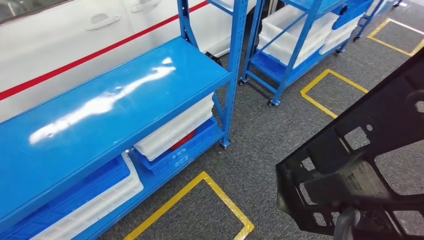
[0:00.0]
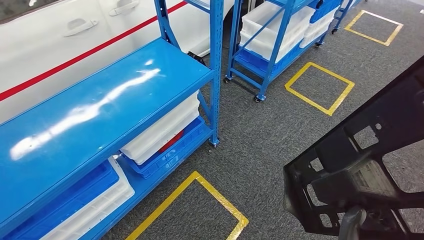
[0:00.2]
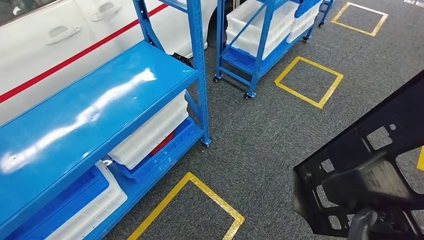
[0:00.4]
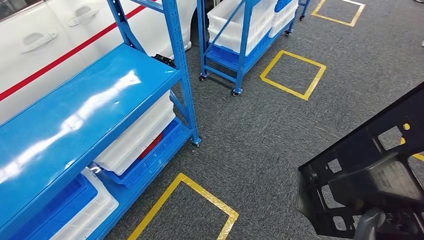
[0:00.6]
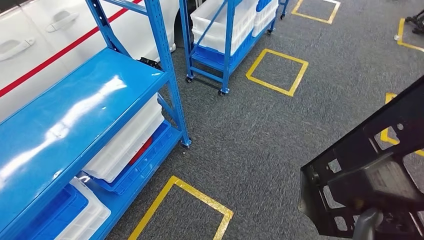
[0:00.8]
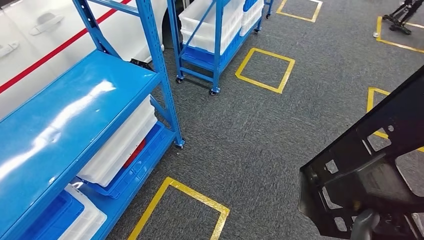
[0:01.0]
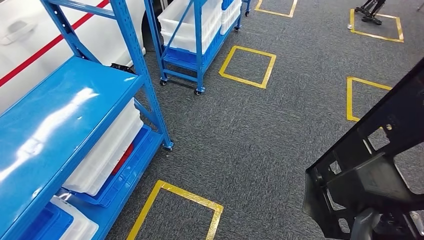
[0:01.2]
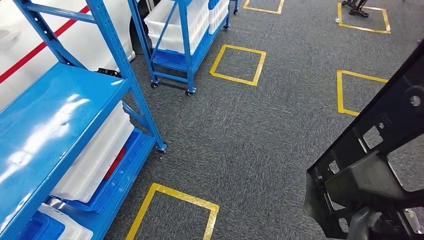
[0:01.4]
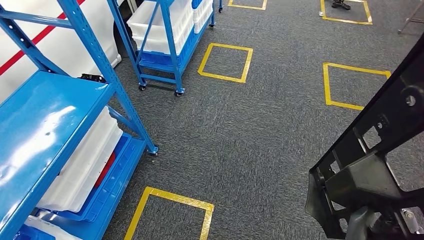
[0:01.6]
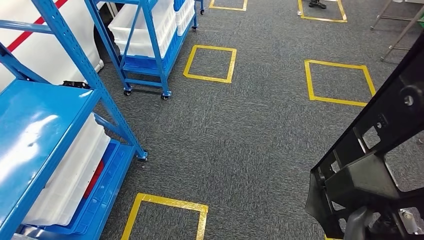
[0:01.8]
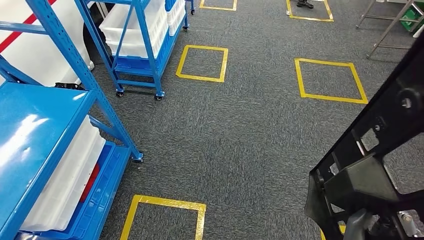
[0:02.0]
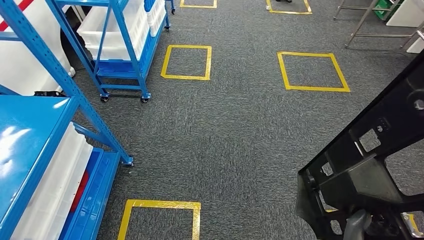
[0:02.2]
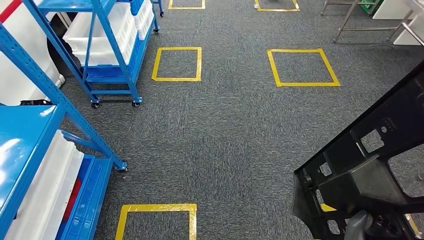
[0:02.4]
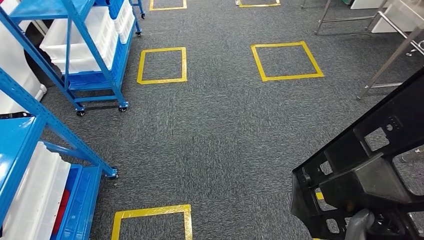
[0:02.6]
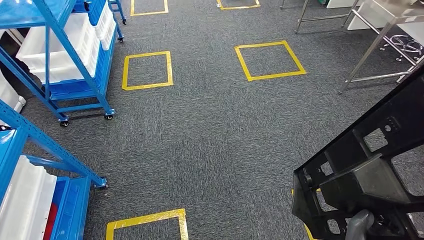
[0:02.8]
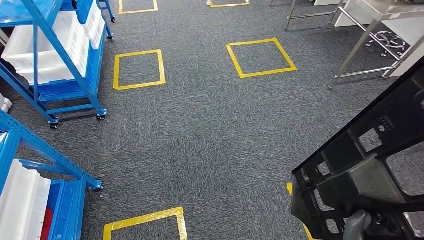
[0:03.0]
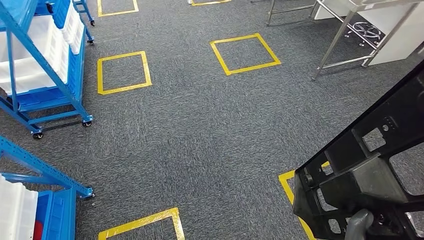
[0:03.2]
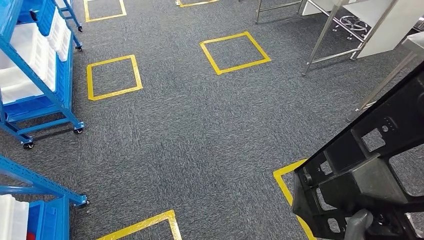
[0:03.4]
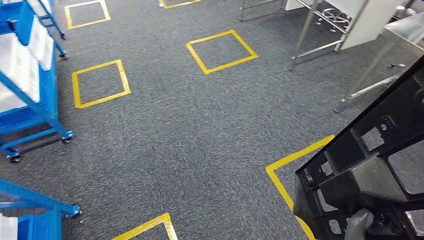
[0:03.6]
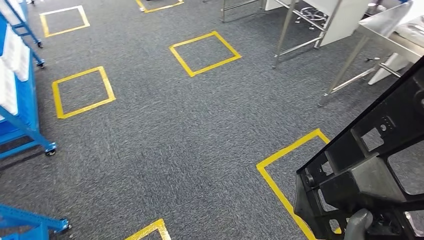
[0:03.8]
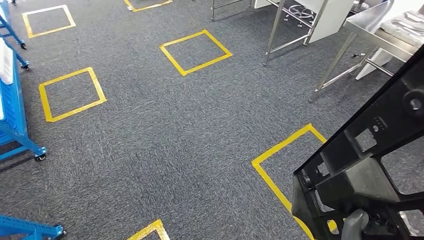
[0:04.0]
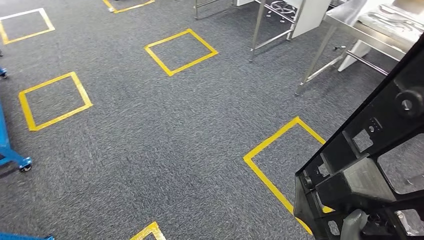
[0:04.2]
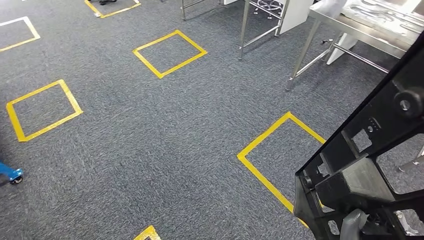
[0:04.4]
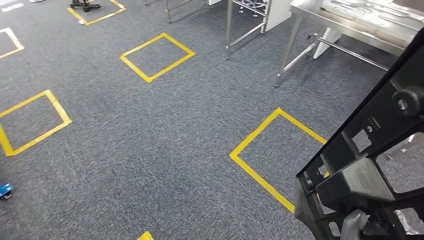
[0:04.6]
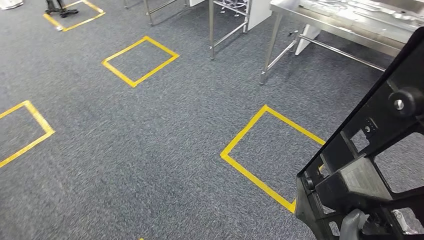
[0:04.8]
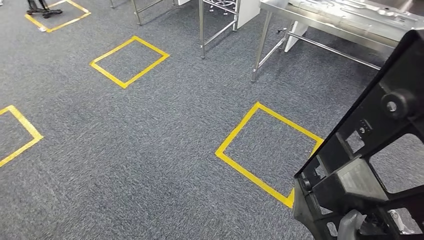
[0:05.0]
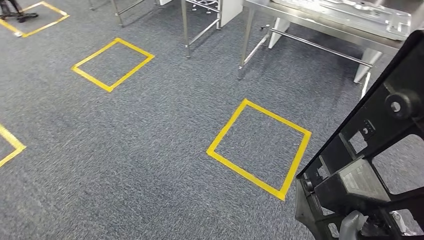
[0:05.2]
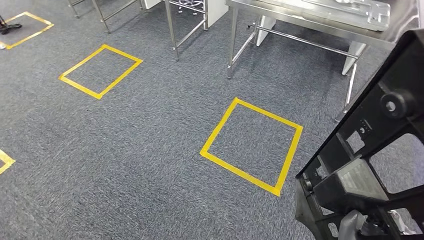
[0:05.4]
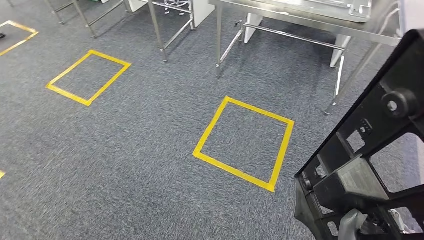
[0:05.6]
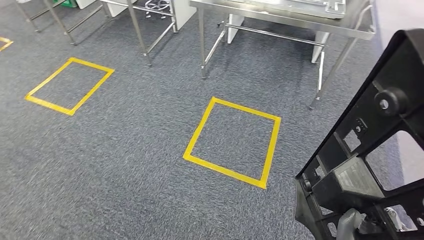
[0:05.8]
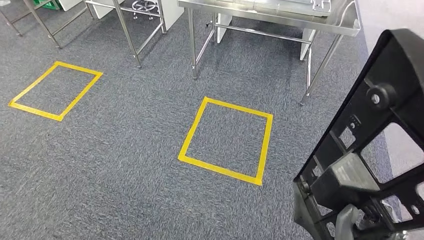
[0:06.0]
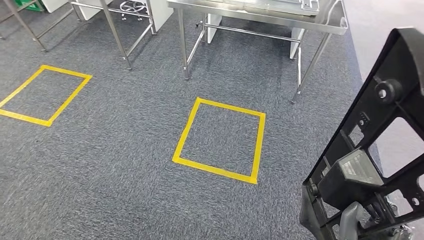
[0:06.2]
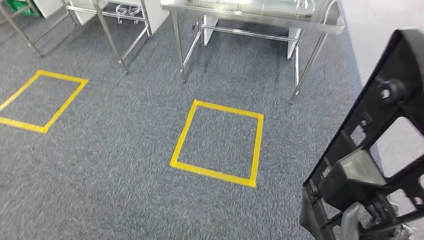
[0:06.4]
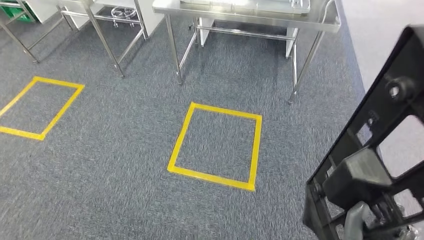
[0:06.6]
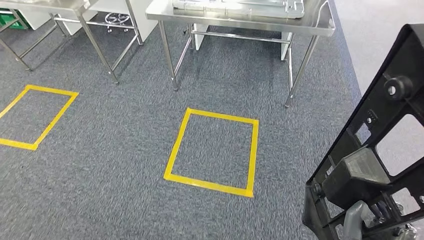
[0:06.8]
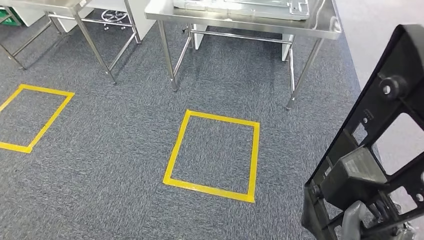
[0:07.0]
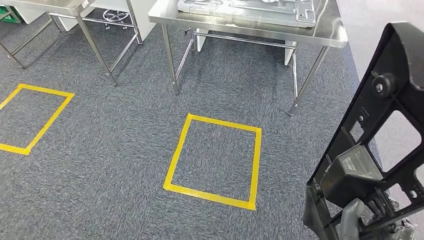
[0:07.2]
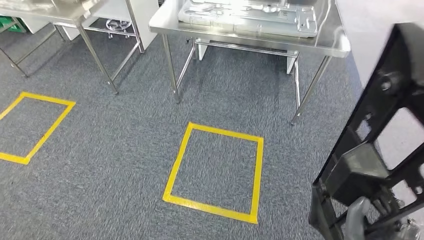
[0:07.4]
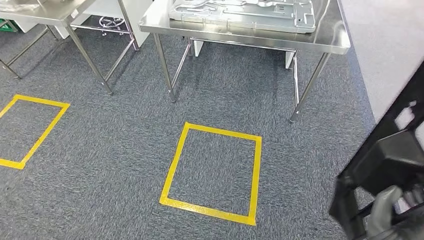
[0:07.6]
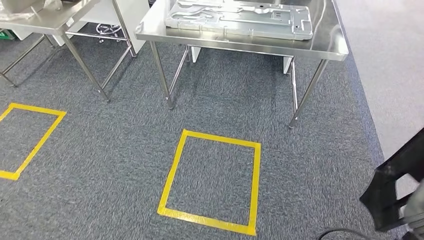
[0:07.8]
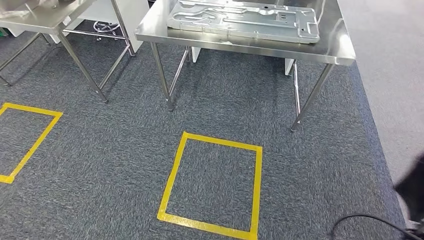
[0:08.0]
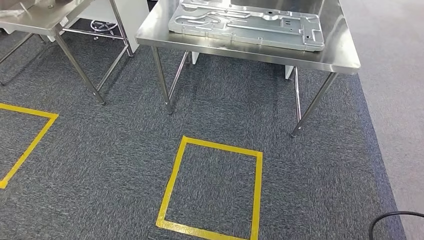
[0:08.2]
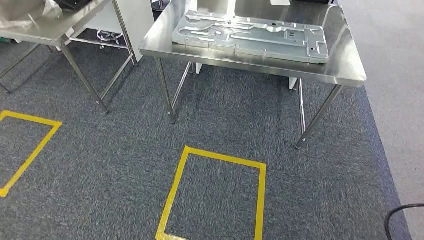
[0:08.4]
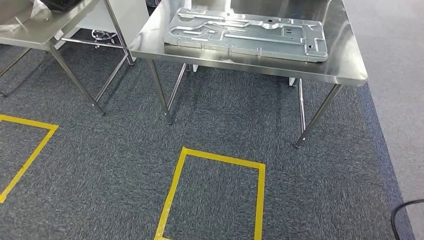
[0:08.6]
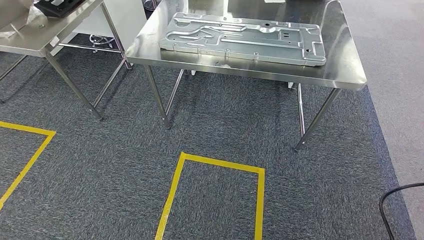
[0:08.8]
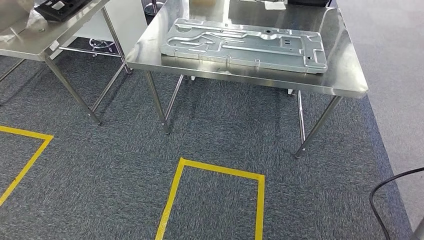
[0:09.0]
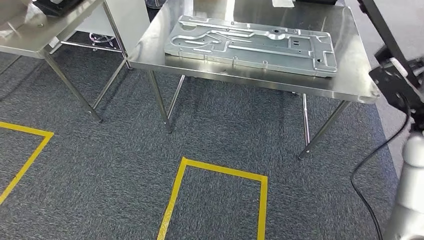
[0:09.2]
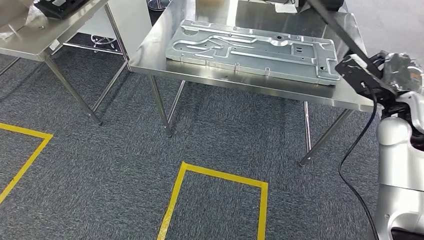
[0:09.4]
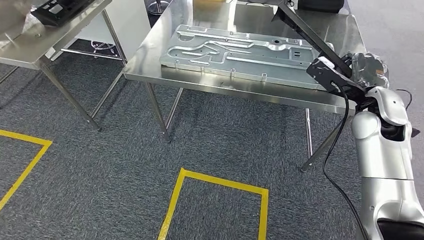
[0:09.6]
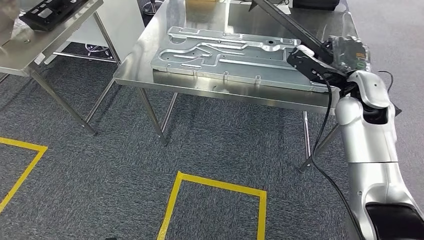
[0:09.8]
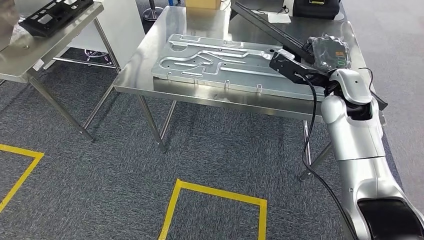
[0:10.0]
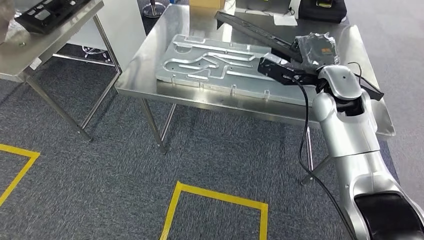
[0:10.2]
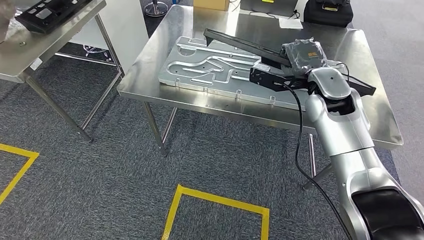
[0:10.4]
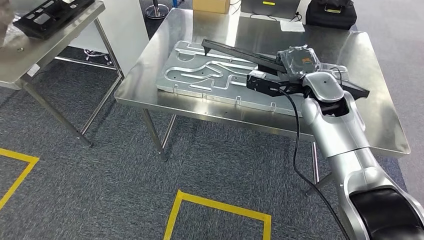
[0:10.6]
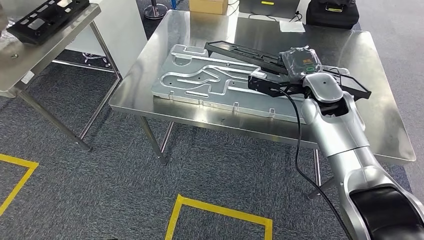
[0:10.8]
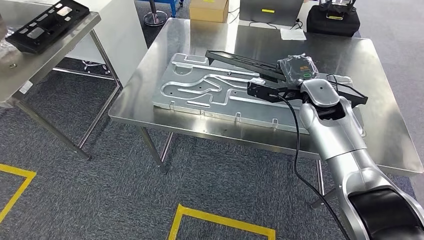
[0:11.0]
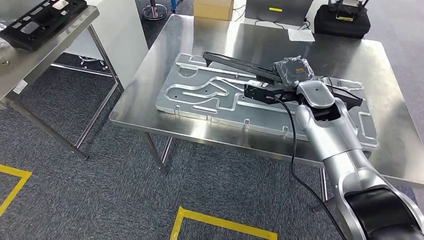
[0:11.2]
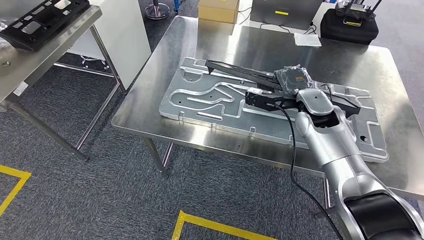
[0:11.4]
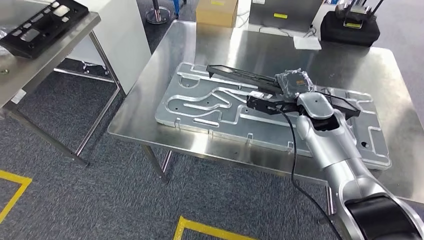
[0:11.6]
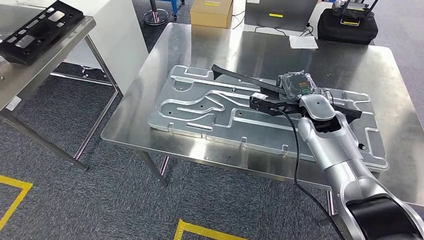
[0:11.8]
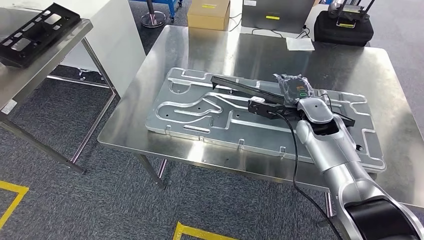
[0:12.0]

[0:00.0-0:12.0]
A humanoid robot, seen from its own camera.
Step, 0:00.0 to 0:10.4: Move the large material to the workbench.

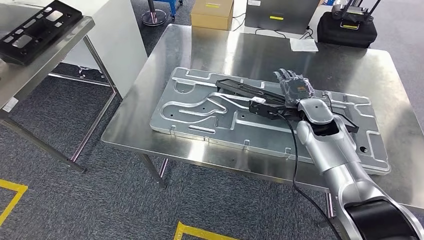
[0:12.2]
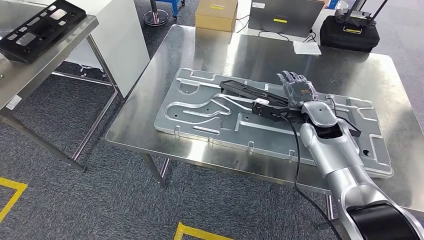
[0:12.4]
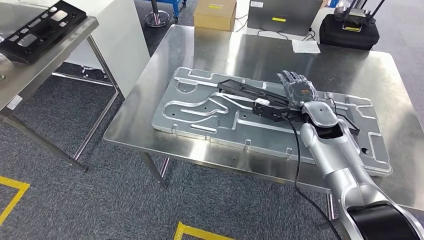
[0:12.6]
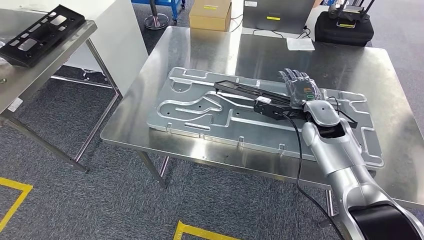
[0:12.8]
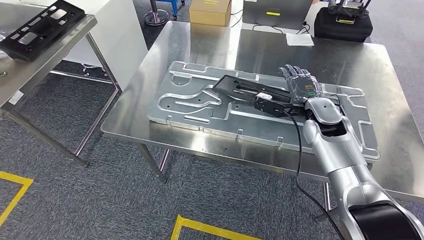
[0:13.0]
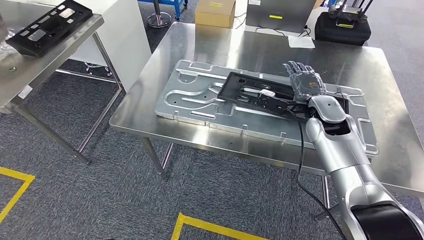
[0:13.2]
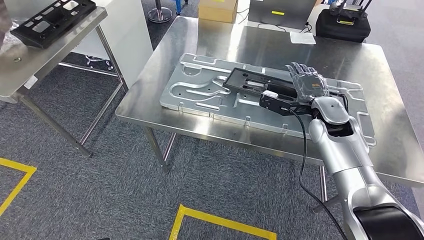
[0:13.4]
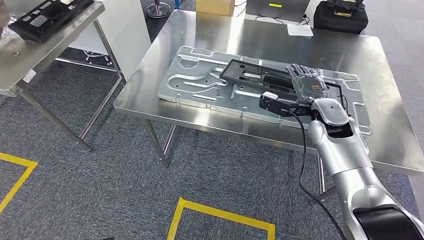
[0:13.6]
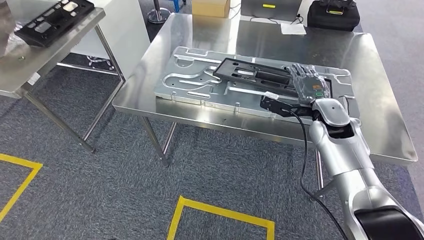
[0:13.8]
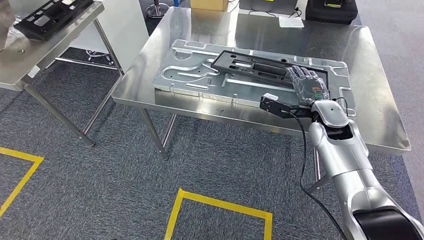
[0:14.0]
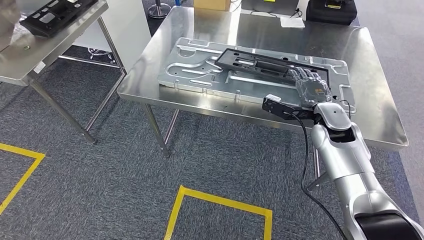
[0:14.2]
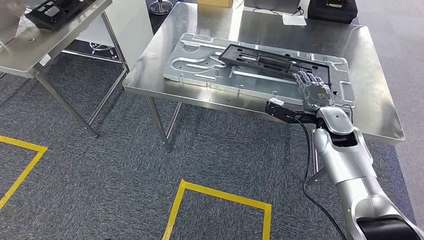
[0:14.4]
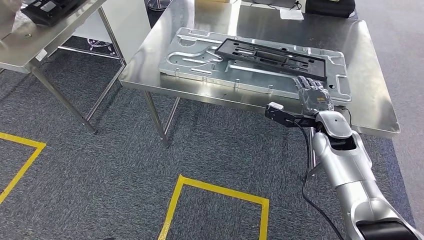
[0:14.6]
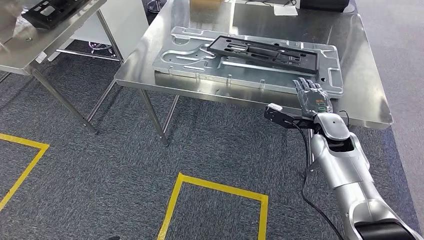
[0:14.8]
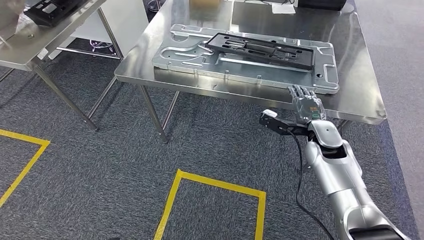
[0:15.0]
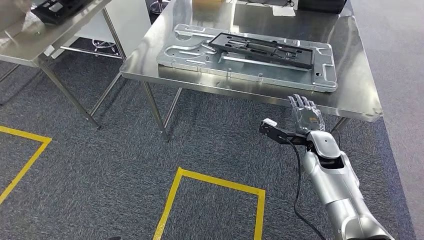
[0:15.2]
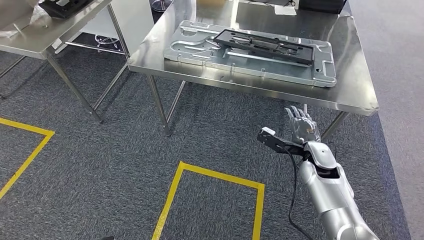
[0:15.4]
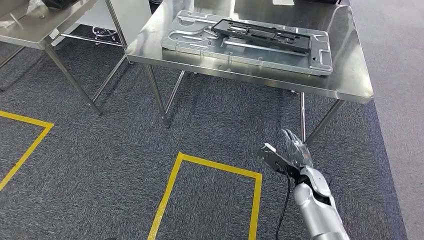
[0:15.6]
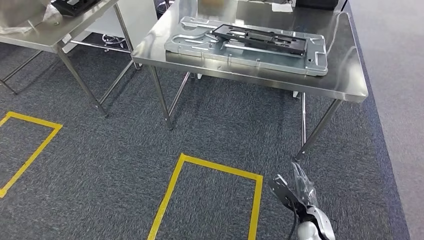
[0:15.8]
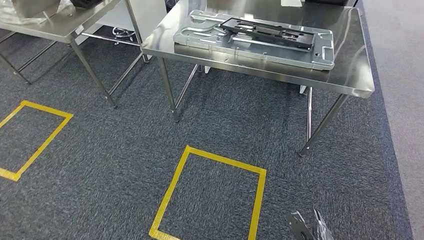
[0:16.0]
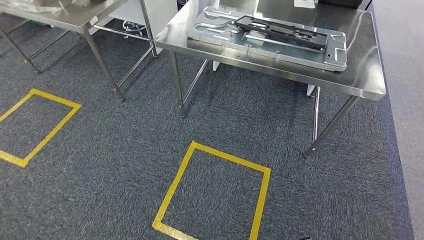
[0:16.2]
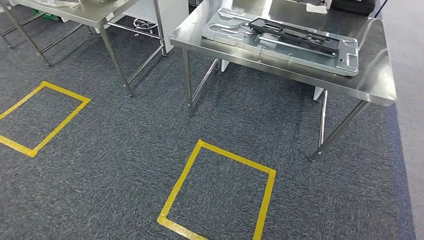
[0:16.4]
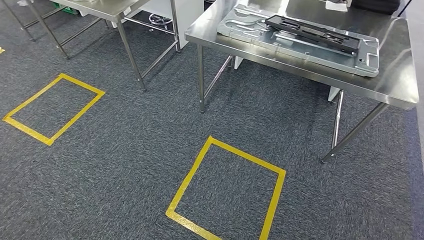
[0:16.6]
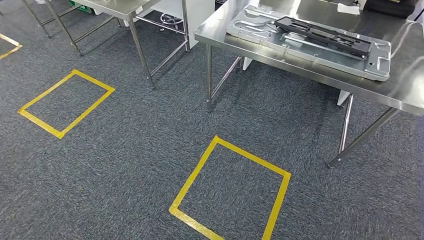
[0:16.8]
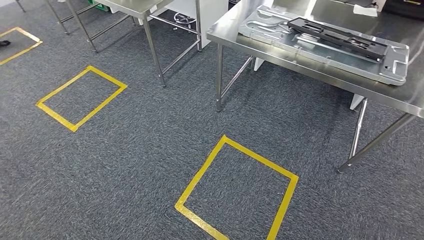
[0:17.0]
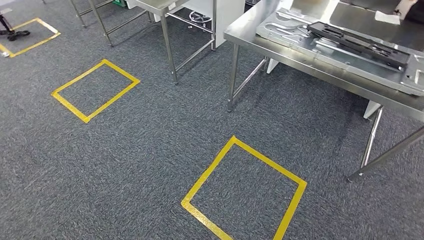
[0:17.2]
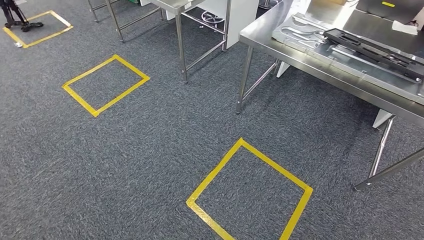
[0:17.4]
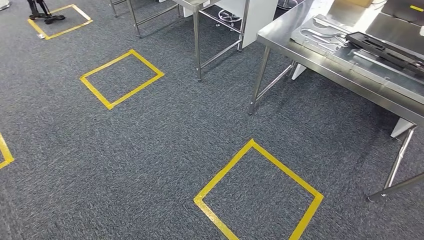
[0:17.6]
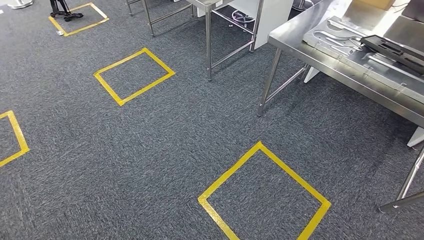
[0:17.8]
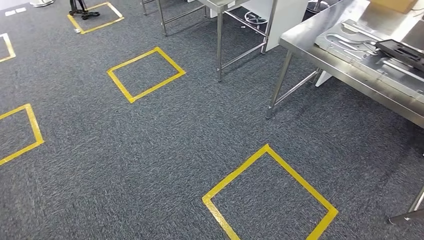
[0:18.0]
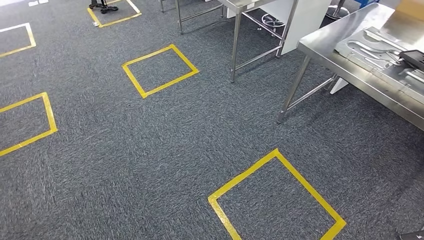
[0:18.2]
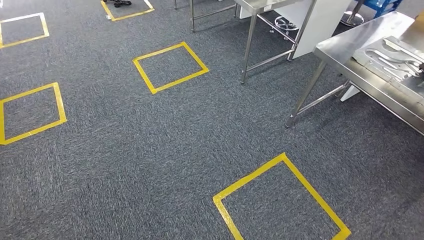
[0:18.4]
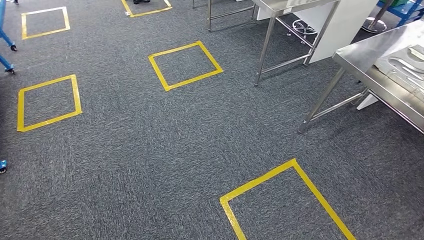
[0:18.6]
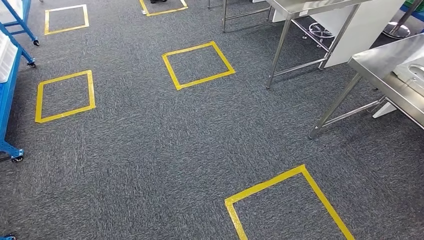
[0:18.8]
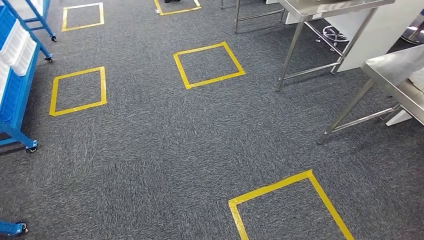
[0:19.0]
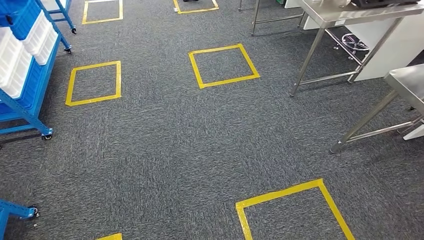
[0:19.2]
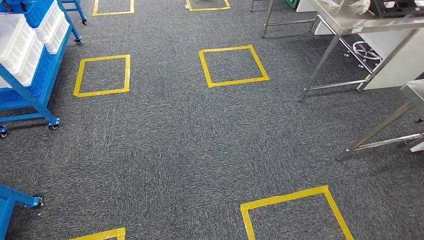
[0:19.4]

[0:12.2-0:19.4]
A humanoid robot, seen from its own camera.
Step, 0:12.2 to 0:14.8: Insert the large material into the corresponding slot on the workbench.
